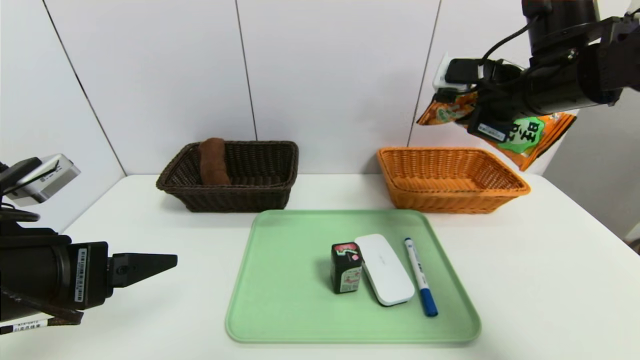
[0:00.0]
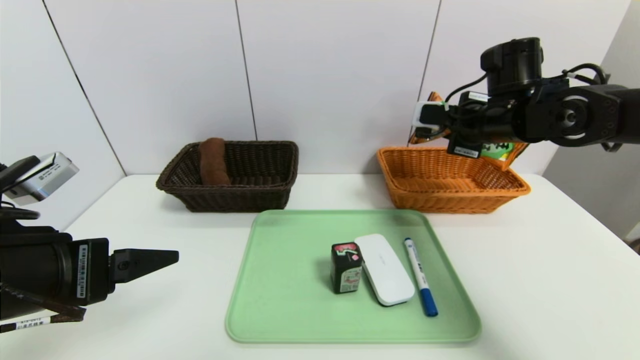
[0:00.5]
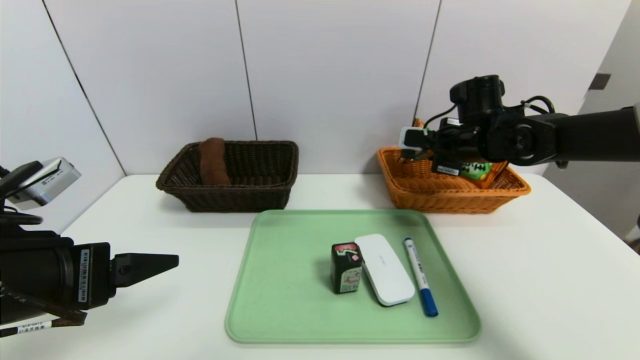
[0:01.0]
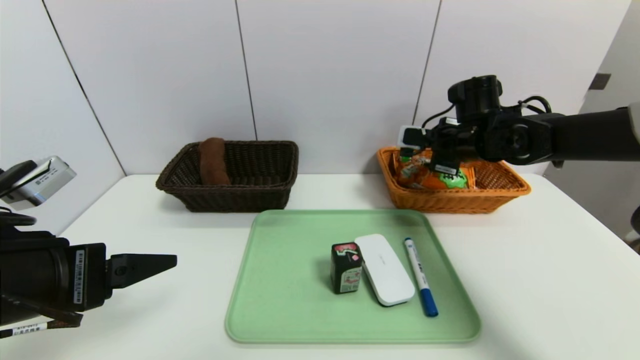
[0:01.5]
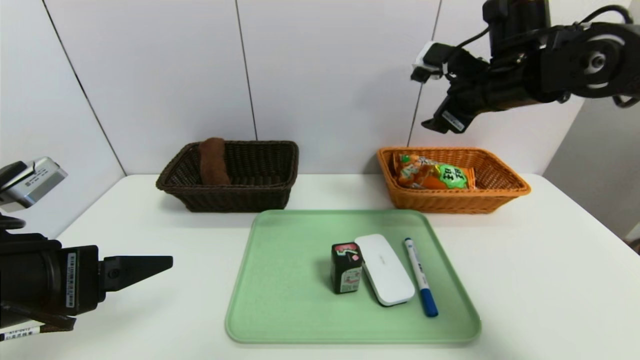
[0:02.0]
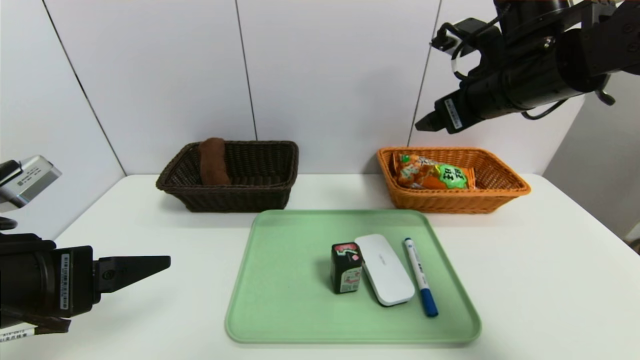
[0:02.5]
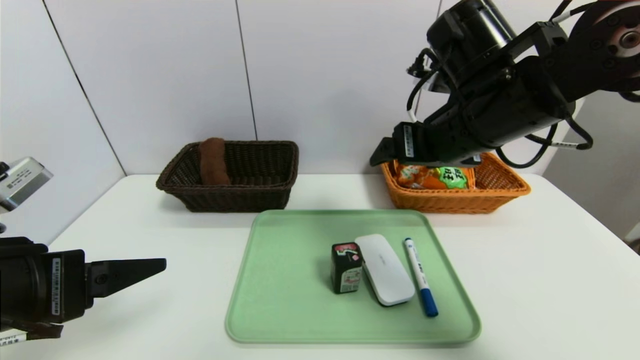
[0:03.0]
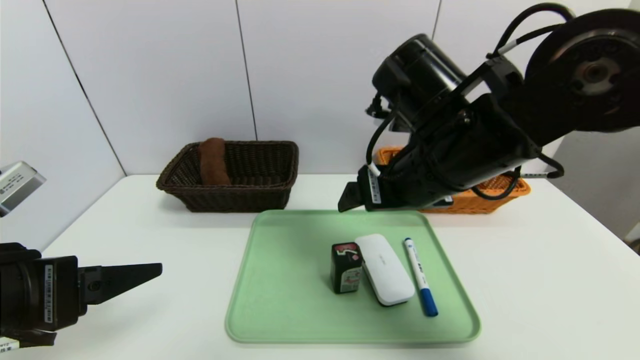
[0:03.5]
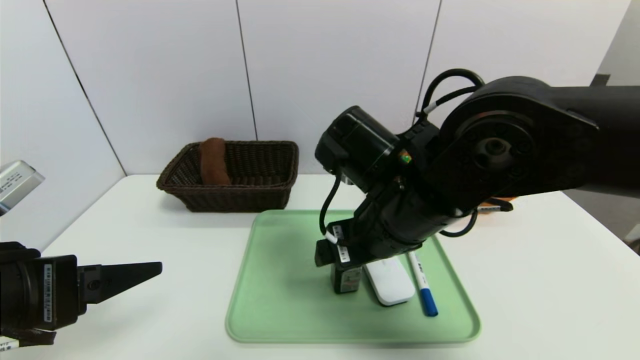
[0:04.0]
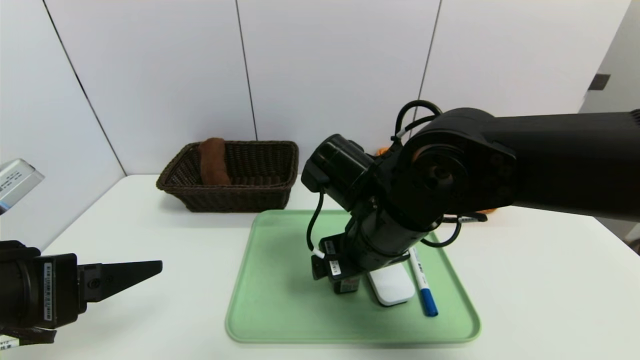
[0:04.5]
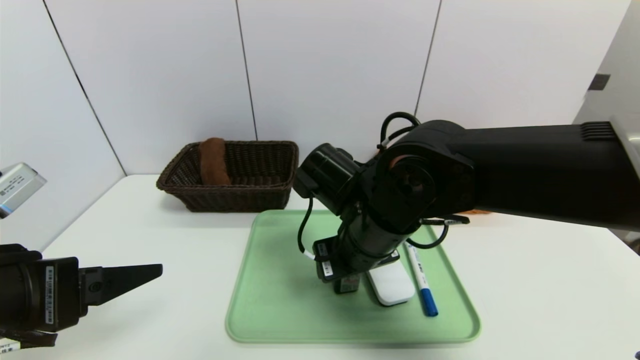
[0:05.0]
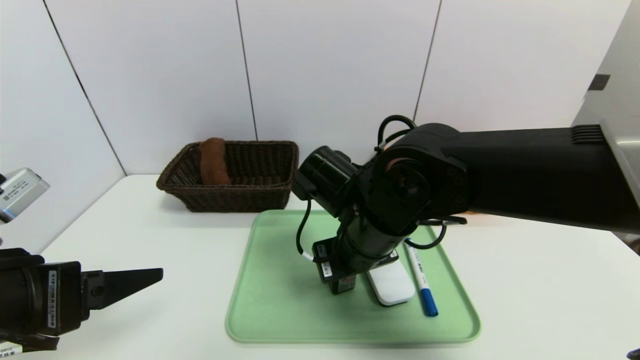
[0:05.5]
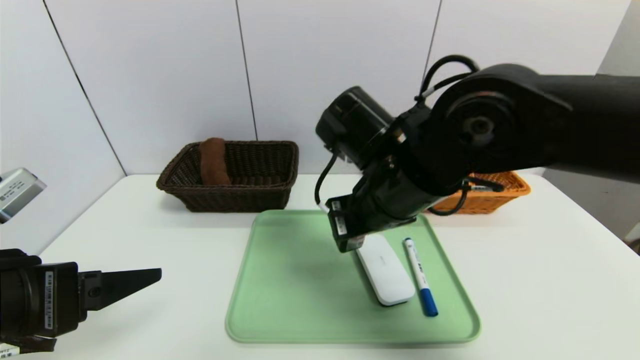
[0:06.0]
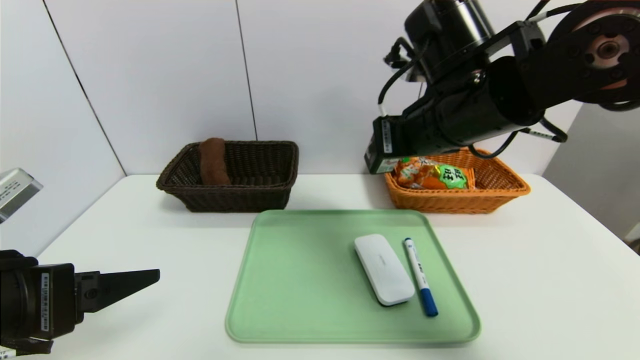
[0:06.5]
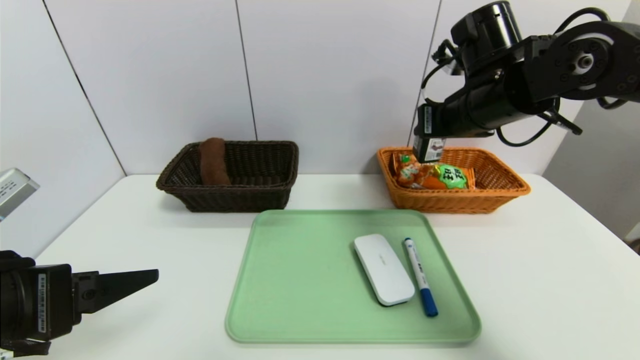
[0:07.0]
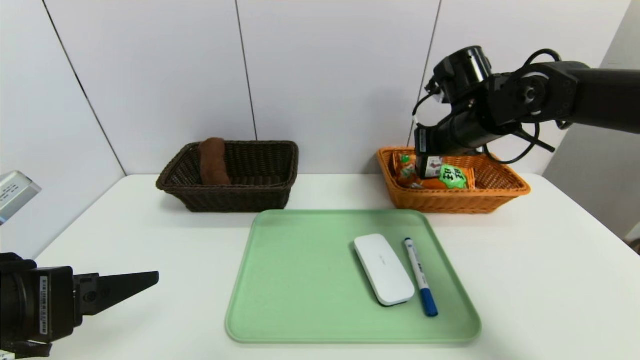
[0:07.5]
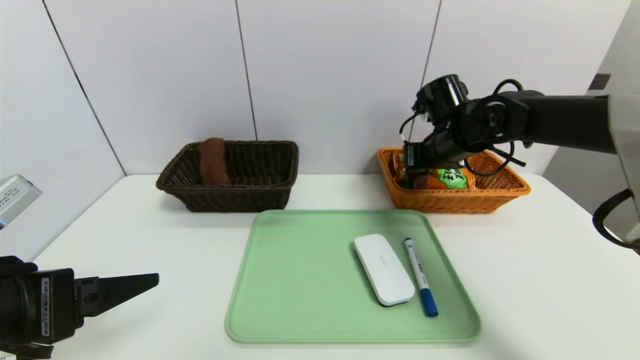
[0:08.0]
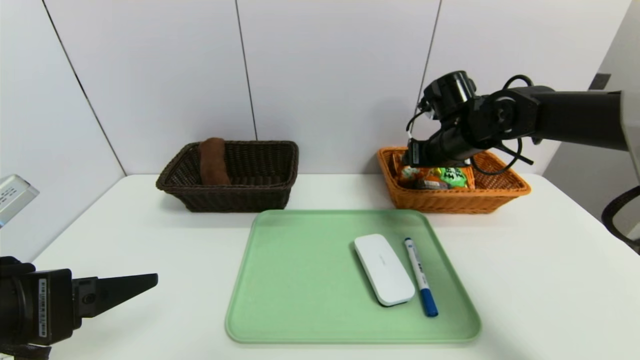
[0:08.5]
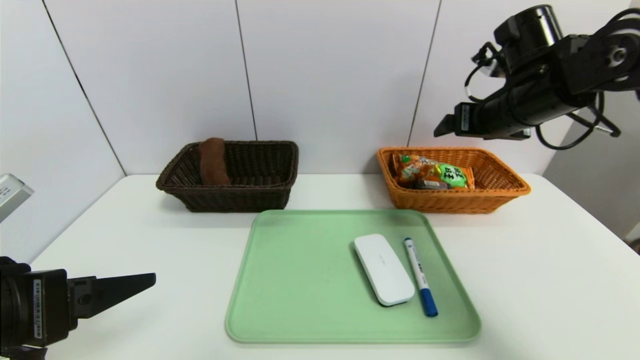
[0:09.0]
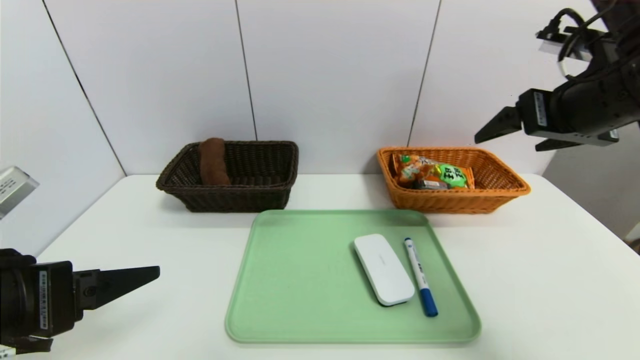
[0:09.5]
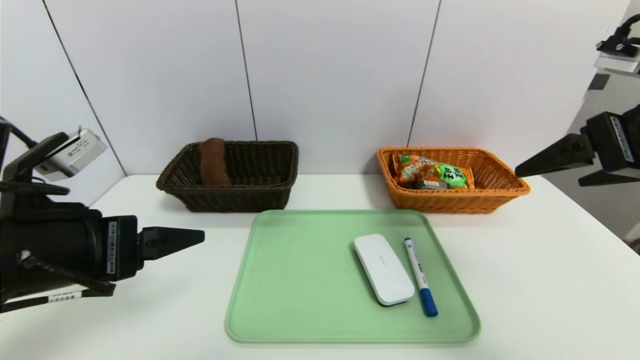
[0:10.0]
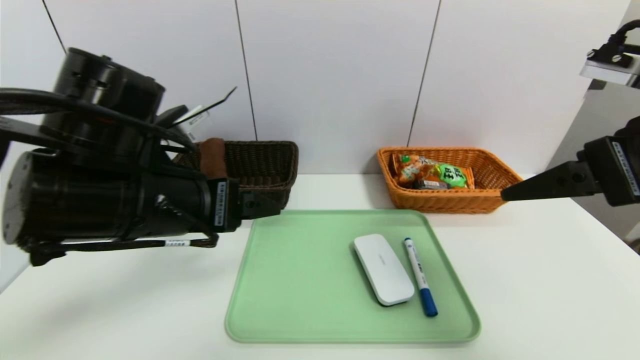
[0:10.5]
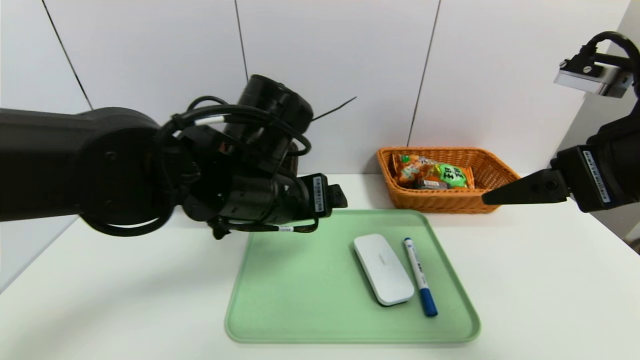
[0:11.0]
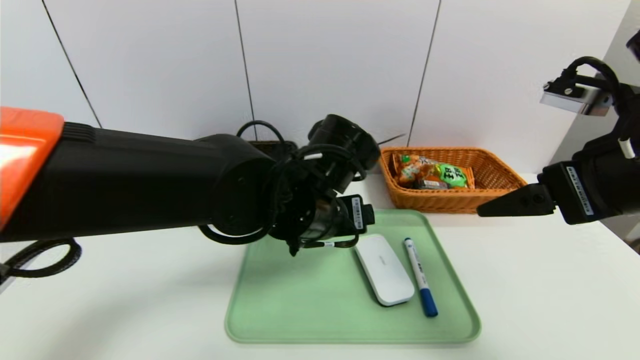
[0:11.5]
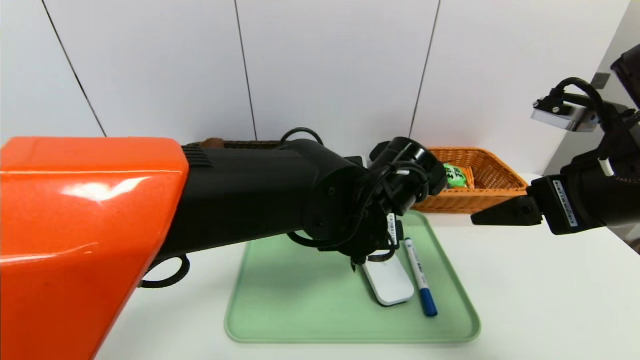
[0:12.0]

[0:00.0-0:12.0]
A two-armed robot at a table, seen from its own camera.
Task of the whole recording: place the food in the right basket with the right gripper, and place the non food items in the left basket with the left gripper.
Step, 0:00.0 to 0:02.5: Grasp the cookie and put it in the right basket.
Step, 0:03.0 to 0:09.0: Grasp the square chewing gum and put it in the right basket.
0:00.0 to 0:02.0: The right gripper goes downward and returns, about 10 cm each way, and opens up.
0:02.0 to 0:04.0: The right gripper shifts roughly 20 cm to the left, backward and downward.
0:04.0 to 0:06.0: The right gripper closes up.
0:06.0 to 0:08.0: The right gripper heads forward and to the right, covering some 20 cm.
0:08.0 to 0:10.0: The right gripper goes some 25 cm backward and upward, and opens; the left gripper moves roughly 5 cm.
0:10.0 to 0:12.0: The right gripper heads downward, covering approximately 5 cm. Meanwhile the left gripper travels to the right by some 25 cm.

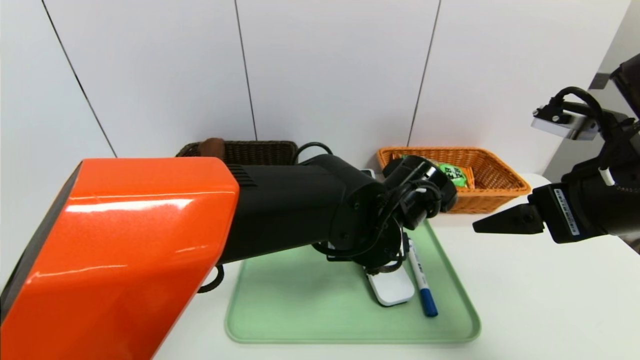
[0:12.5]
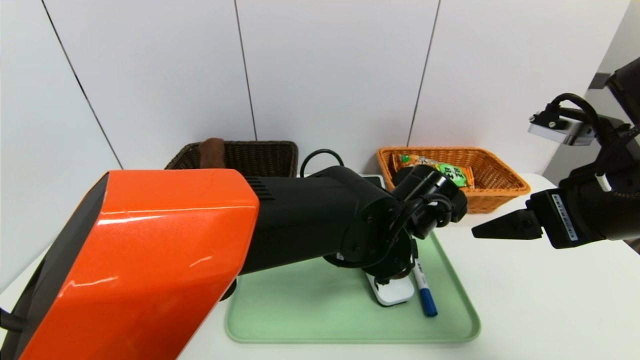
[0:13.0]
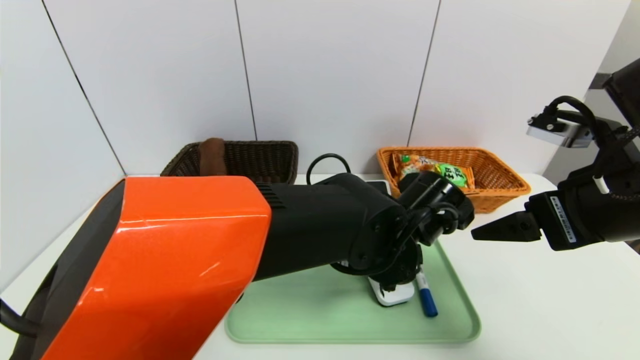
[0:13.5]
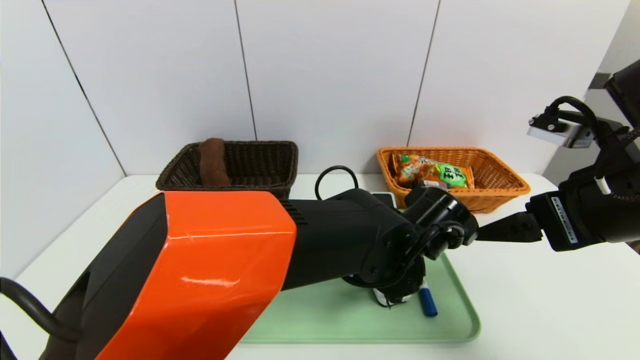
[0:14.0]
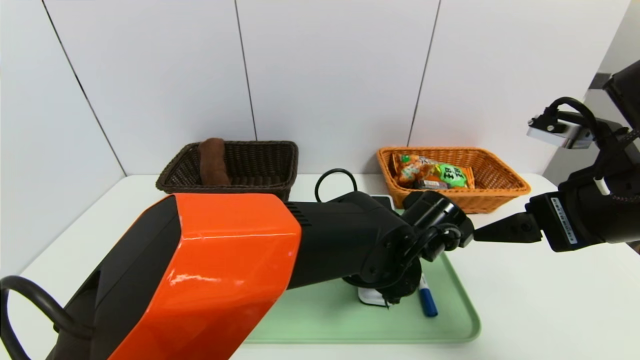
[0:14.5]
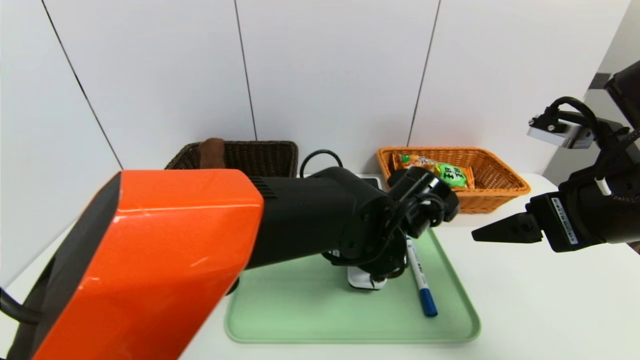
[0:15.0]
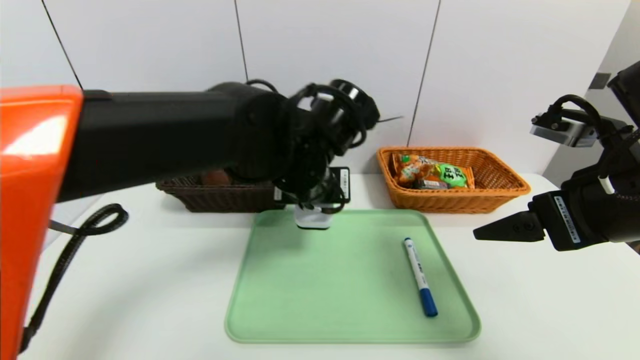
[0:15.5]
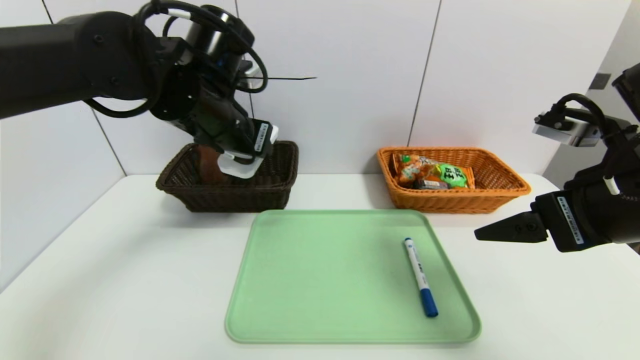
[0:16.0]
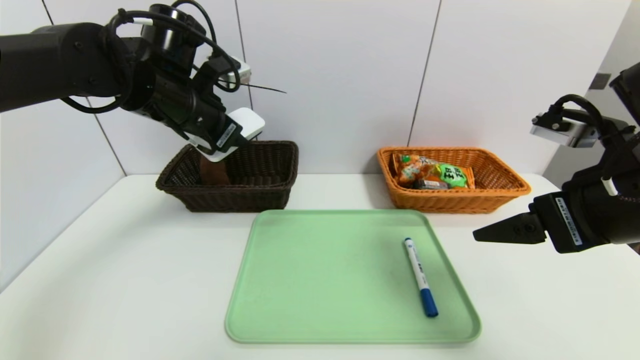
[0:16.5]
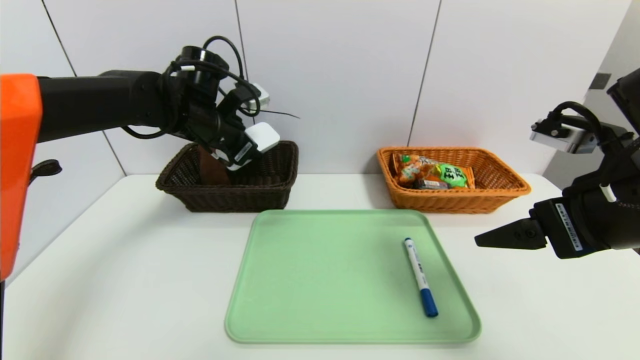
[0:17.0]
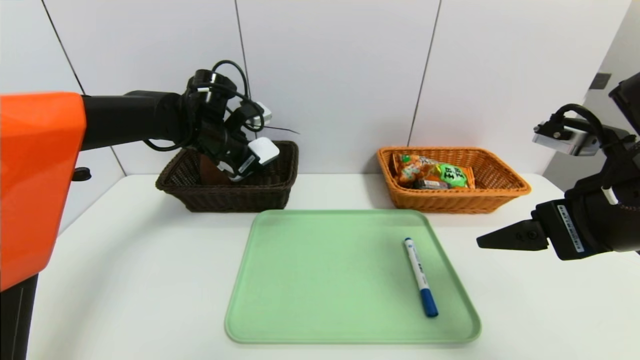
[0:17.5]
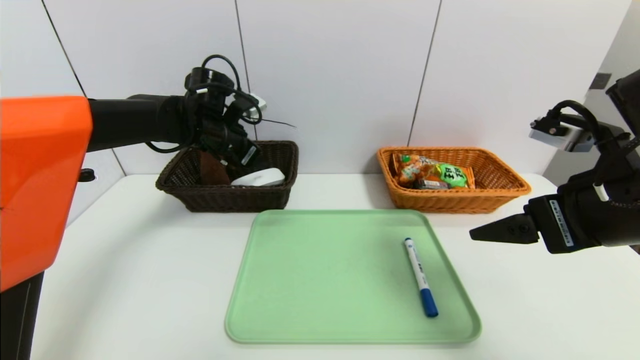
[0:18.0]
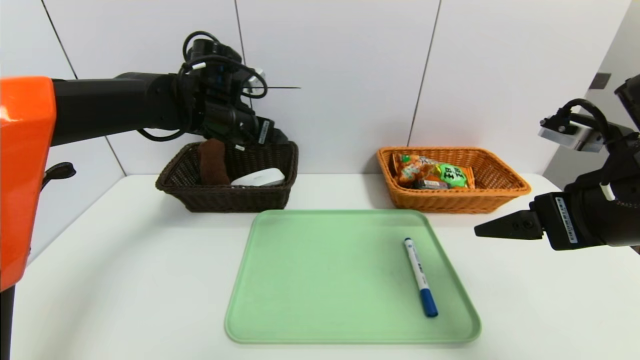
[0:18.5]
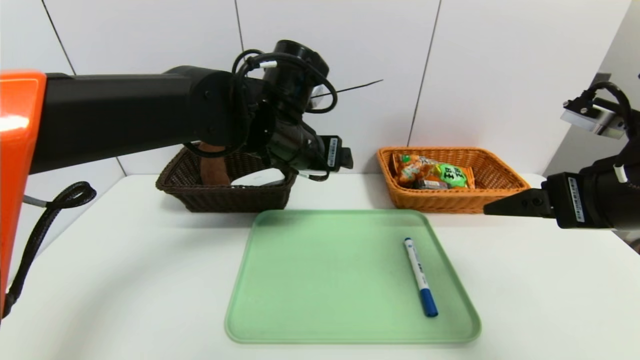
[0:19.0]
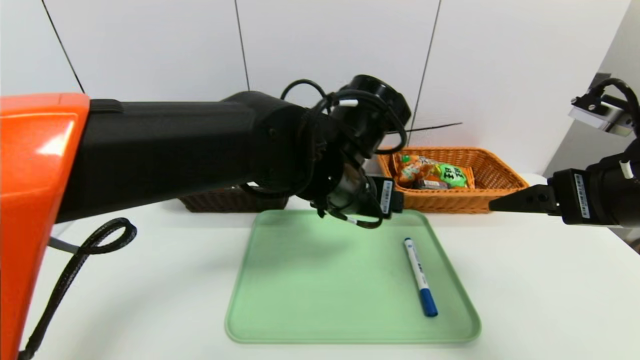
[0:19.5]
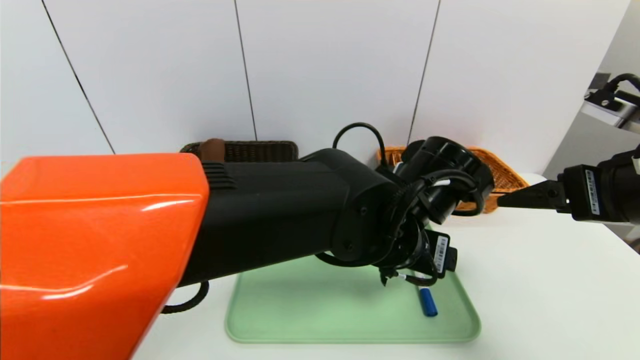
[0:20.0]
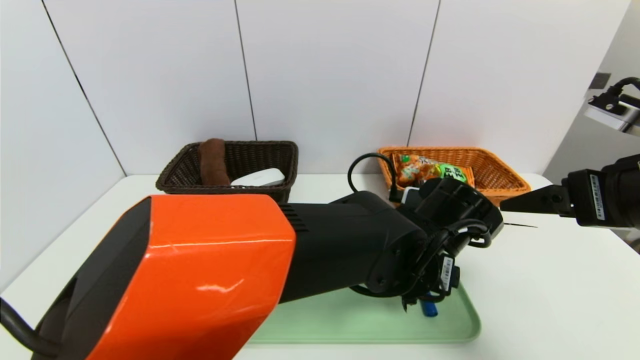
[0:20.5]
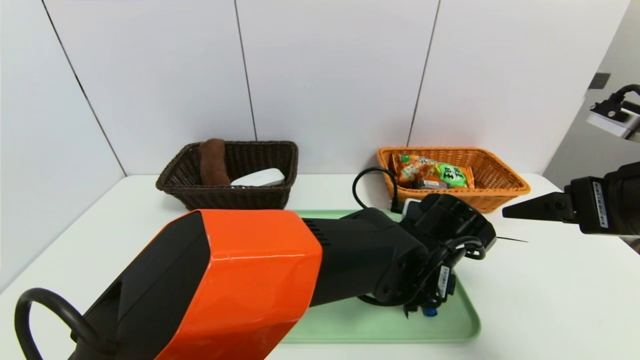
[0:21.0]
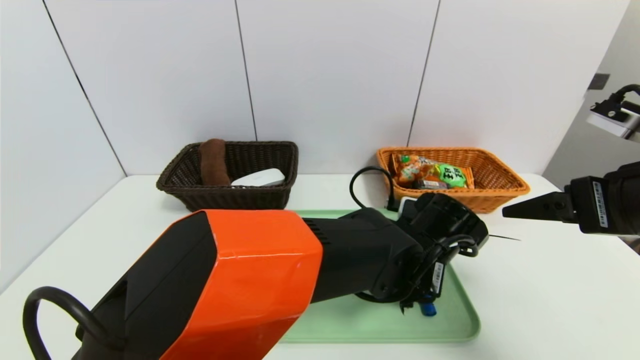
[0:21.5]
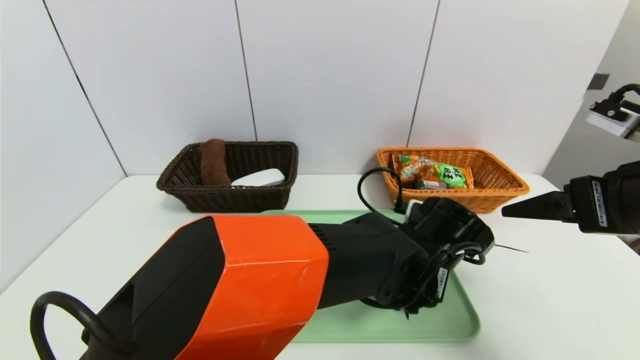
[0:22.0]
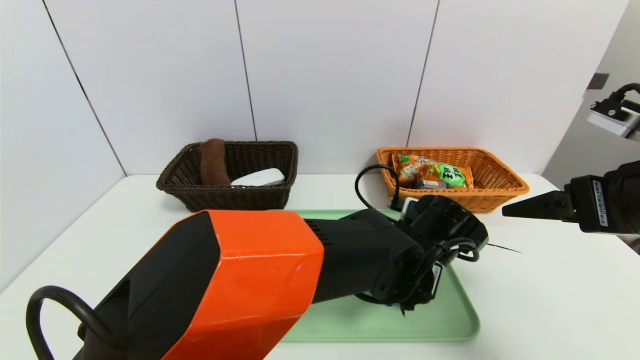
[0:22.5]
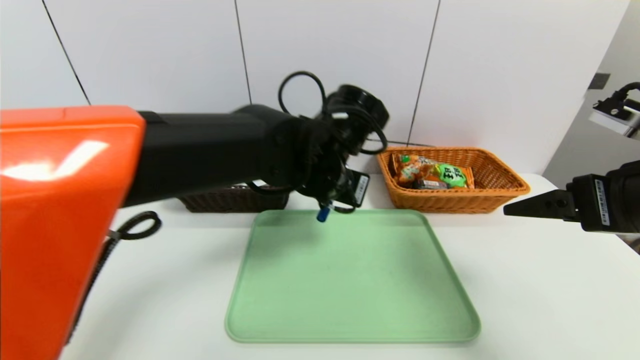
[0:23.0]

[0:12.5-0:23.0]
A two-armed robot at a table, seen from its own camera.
Task of the whole recording: place the food in the right basket with the right gripper, and place the non food items in the left basket with the left gripper.
Step, 0:12.5 to 0:18.0: Grasp the white eraser and put it in the left basket.
0:12.5 to 0:14.5: The left gripper closes.
0:14.5 to 0:16.5: The left gripper travels to the left, upward and forward by roughly 35 cm.
0:16.5 to 0:19.0: The left gripper heads to the right, covering some 15 cm, and opens its fingers.
0:19.0 to 0:21.0: The left gripper moves to the right, downward and backward, about 20 cm.
0:21.0 to 0:23.0: The left gripper heads to the left, upward and forward, covering about 15 cm, and closes up.
